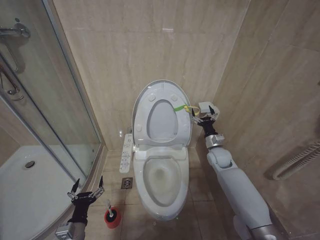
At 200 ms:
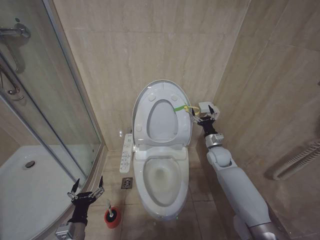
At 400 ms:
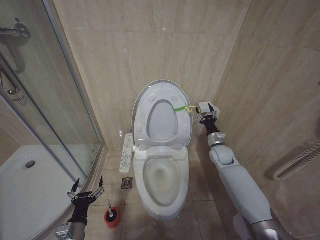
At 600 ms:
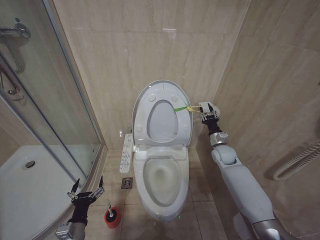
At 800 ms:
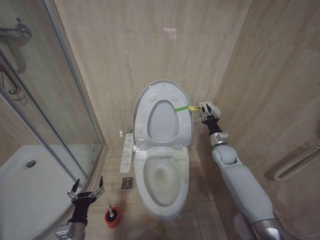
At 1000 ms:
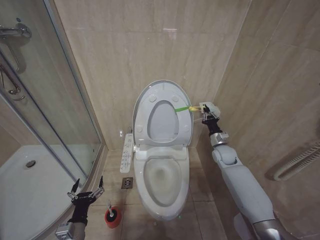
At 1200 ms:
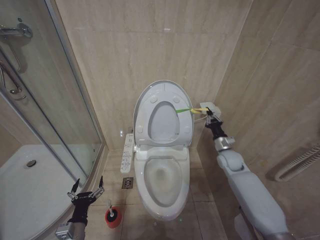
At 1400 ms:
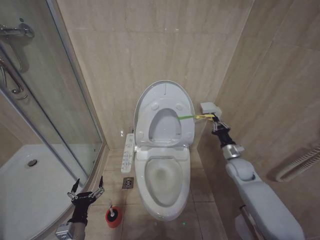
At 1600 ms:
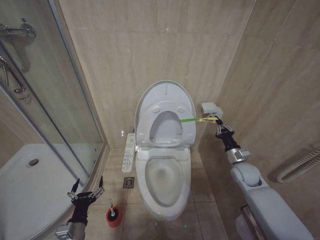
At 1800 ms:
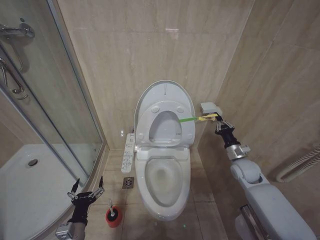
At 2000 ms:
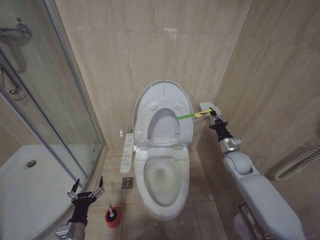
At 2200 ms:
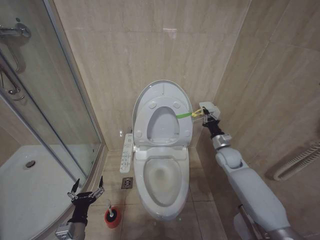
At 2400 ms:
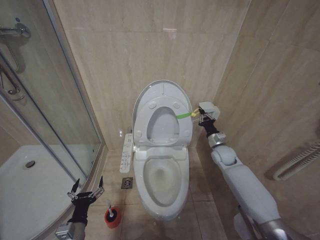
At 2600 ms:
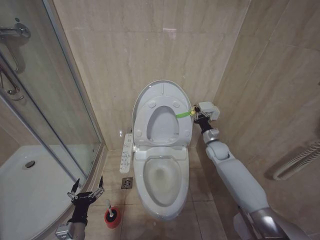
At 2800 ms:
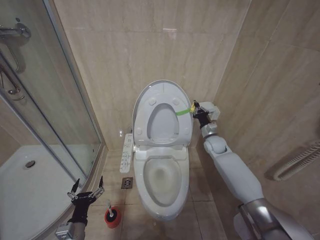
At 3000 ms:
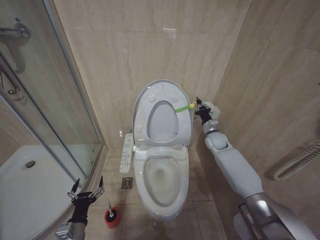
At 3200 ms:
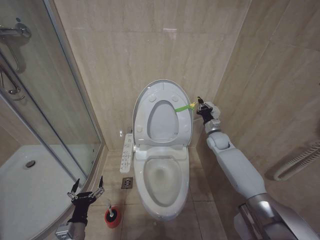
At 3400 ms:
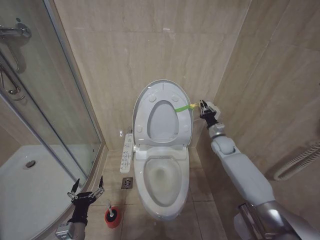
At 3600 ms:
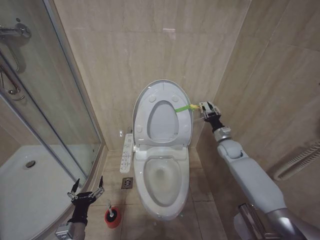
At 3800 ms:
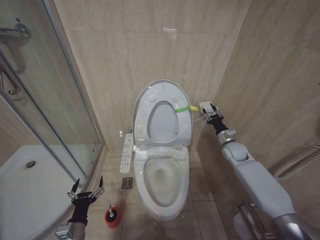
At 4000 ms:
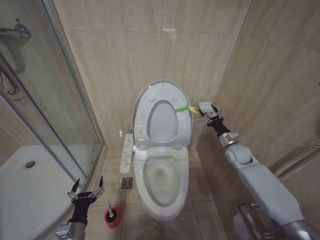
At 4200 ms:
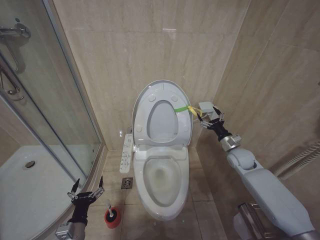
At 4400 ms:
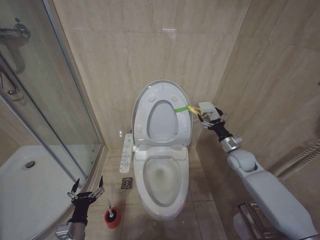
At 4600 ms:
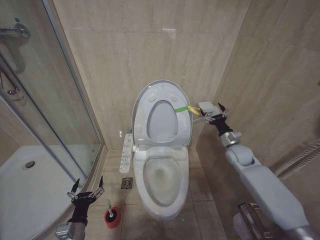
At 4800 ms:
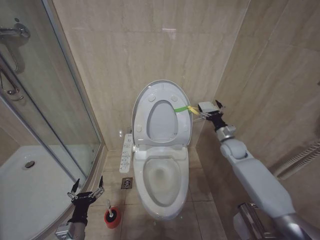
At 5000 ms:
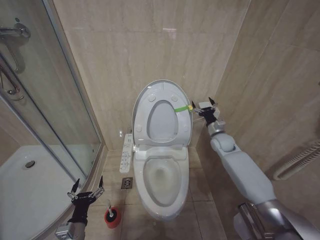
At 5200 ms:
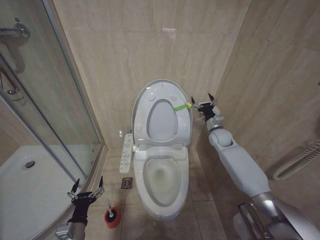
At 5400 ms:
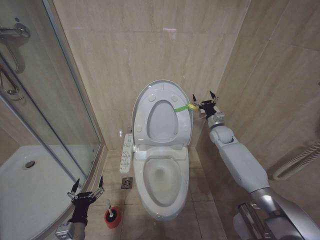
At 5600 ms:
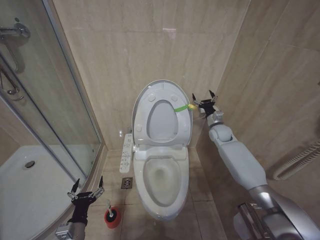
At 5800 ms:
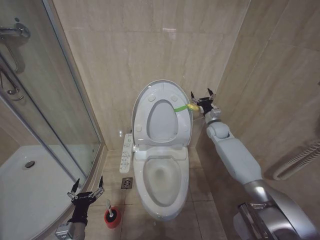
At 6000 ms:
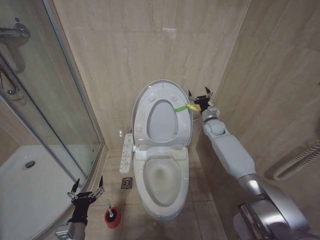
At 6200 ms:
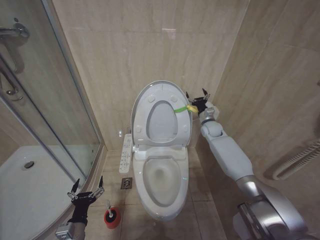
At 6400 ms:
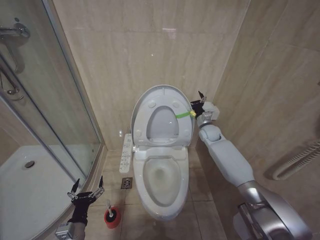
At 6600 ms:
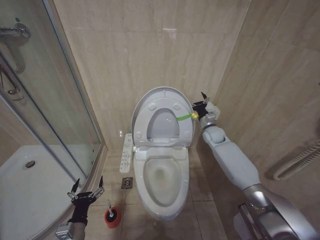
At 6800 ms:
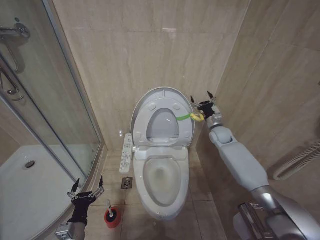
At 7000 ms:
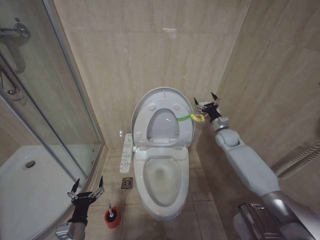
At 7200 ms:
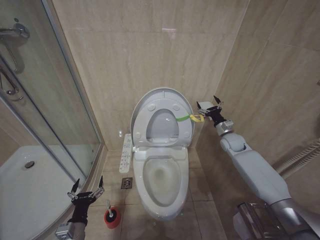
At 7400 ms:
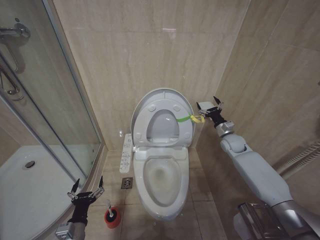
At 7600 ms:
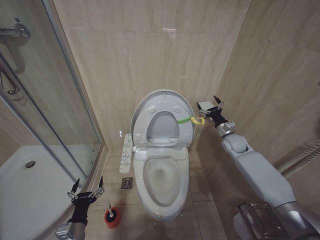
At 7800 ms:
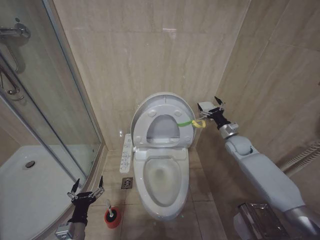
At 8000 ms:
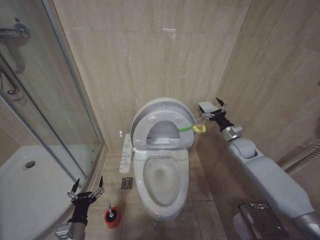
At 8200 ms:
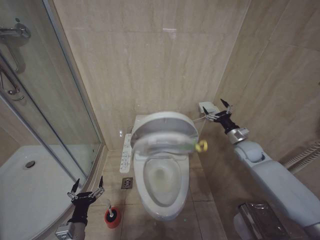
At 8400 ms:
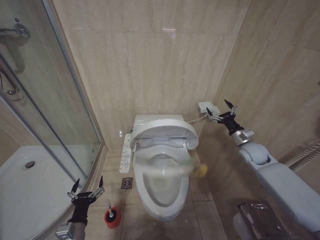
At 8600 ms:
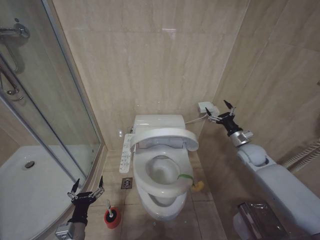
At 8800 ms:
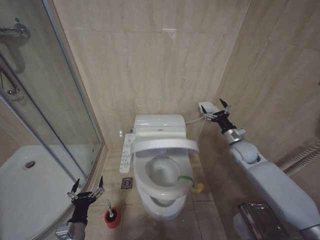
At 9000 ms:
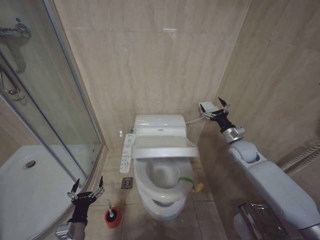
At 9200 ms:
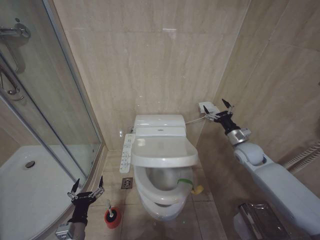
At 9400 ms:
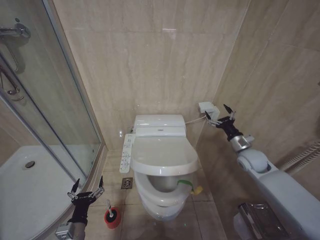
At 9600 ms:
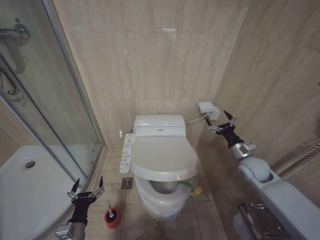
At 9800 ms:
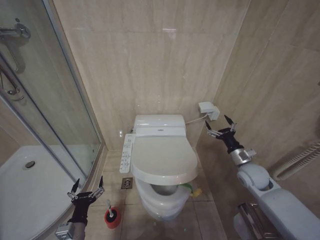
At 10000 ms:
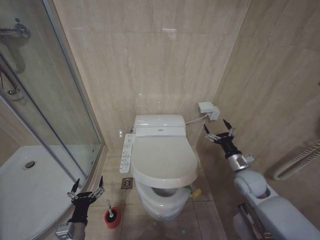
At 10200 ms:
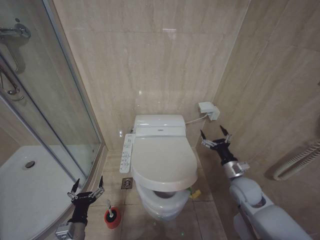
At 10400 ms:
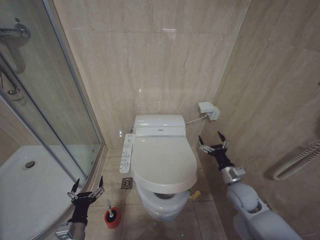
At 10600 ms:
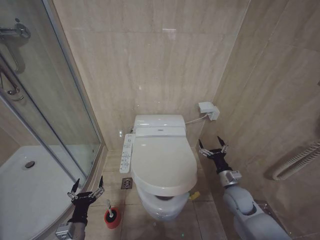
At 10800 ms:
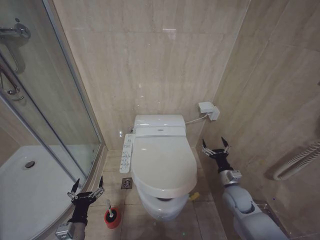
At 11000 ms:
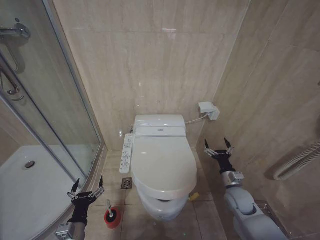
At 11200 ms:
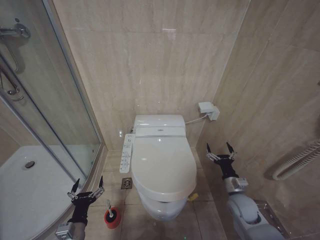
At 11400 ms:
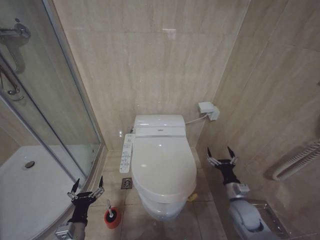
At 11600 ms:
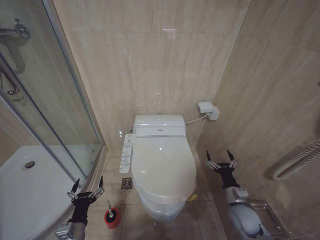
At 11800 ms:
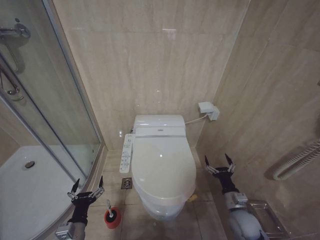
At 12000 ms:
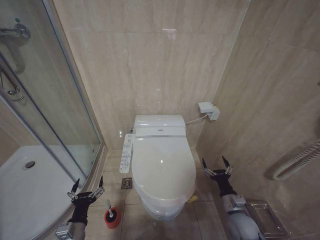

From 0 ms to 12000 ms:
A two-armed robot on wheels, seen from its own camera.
Task of the whole recording: Open the toilet lid, clean the toilet bowl with a toilet brush, close the toilet lid, and flush.
From 0 ms to 1600 ms: The right gripper travels to the right and backward by about 10 cm, and closes.
From 1600 ms to 3000 ms: The right gripper heads forward and to the left, covering approximately 15 cm.
From 3000 ms to 4400 ms: The right gripper shifts approximately 10 cm backward and to the right, and opens its fingers.
From 4400 ms to 6000 ms: The right gripper goes some 15 cm forward, to the left and upward.
From 6000 ms to 7600 ms: The right gripper is displaced backward and to the right by approximately 10 cm.
From 7600 ms to 9000 ms: The right gripper heads backward, covering about 5 cm.
From 9000 ms to 10400 ms: The right gripper heads backward and downward, covering approximately 15 cm.
From 10400 ms to 12000 ms: The right gripper moves downward and backward, some 10 cm.

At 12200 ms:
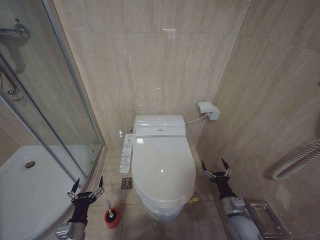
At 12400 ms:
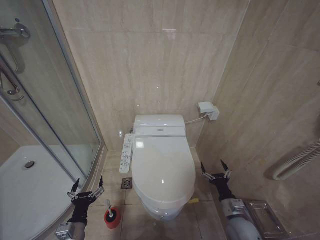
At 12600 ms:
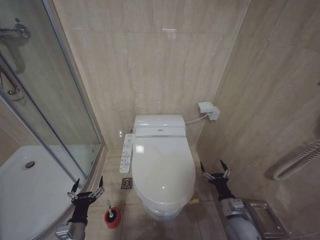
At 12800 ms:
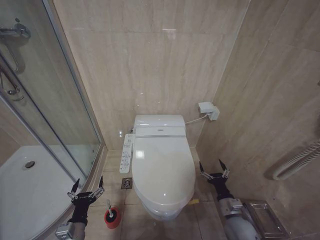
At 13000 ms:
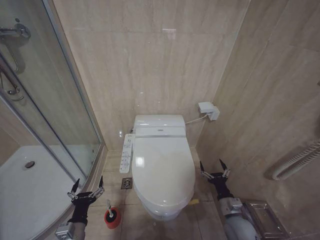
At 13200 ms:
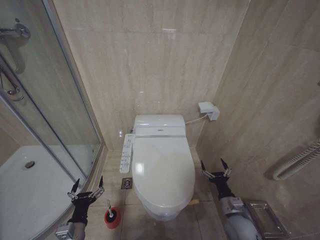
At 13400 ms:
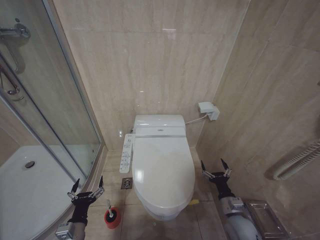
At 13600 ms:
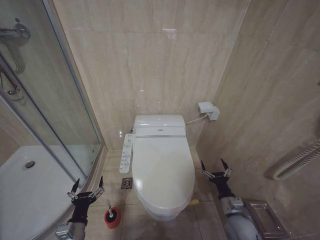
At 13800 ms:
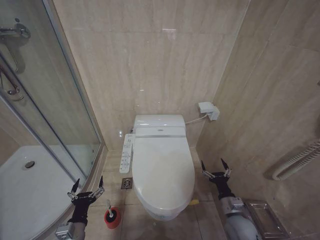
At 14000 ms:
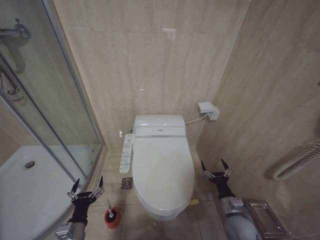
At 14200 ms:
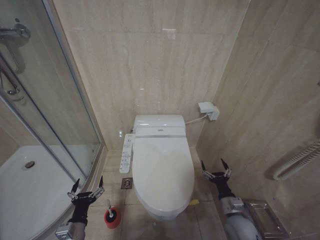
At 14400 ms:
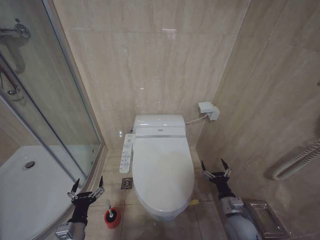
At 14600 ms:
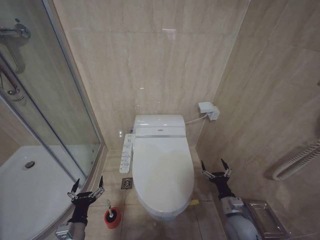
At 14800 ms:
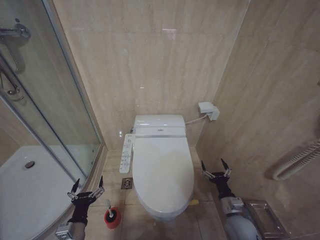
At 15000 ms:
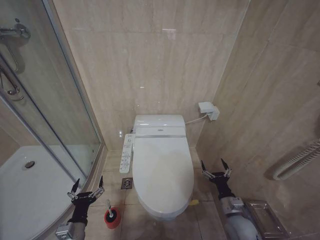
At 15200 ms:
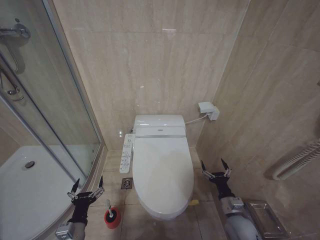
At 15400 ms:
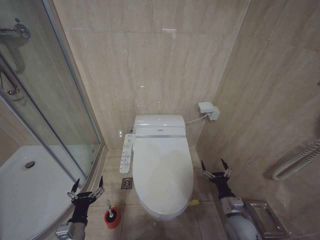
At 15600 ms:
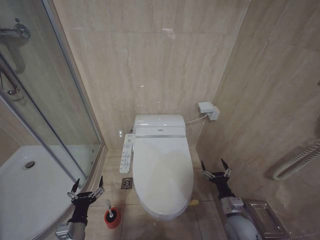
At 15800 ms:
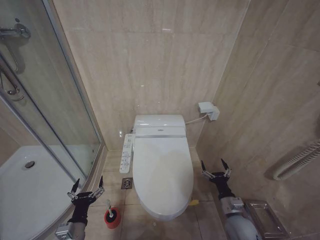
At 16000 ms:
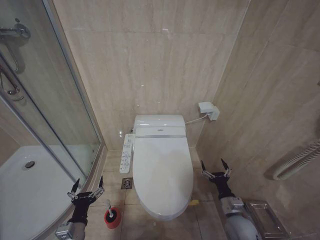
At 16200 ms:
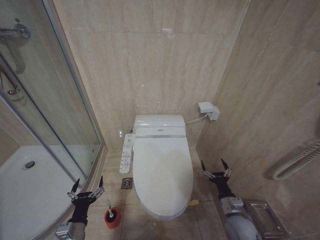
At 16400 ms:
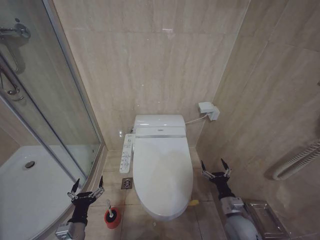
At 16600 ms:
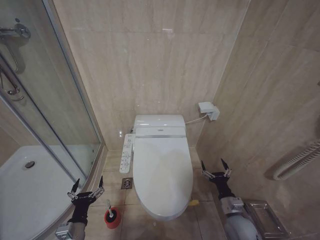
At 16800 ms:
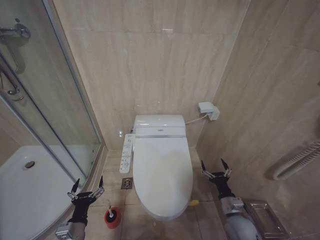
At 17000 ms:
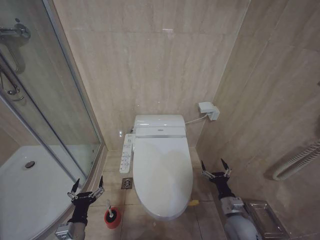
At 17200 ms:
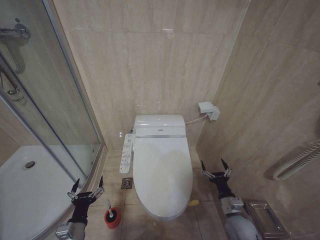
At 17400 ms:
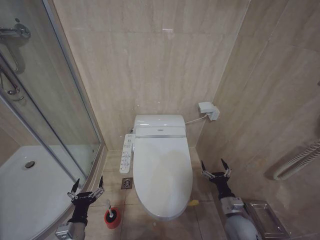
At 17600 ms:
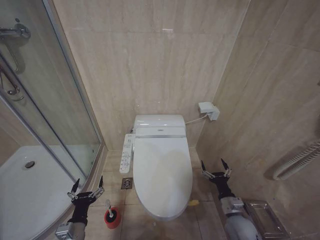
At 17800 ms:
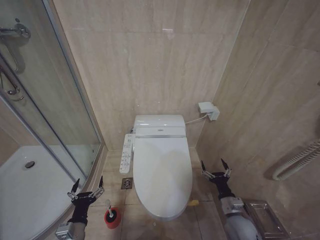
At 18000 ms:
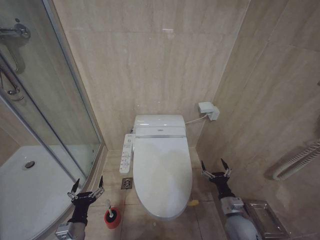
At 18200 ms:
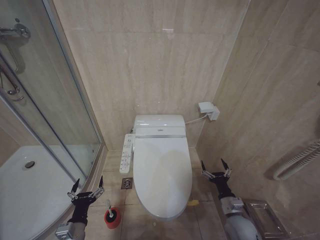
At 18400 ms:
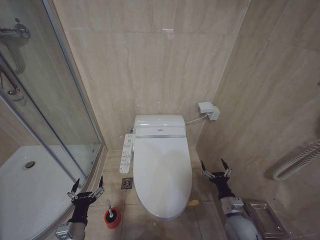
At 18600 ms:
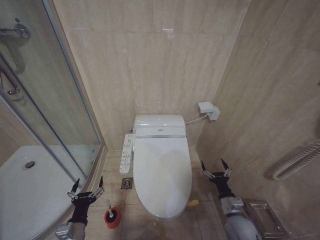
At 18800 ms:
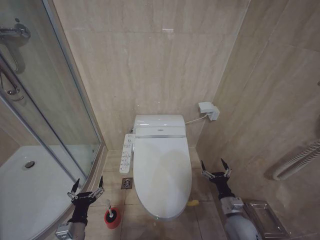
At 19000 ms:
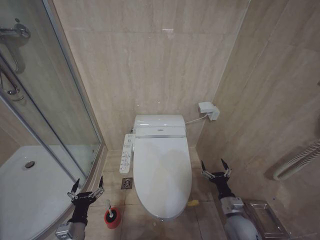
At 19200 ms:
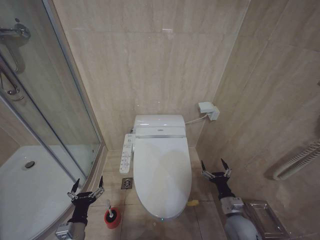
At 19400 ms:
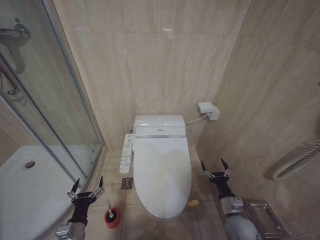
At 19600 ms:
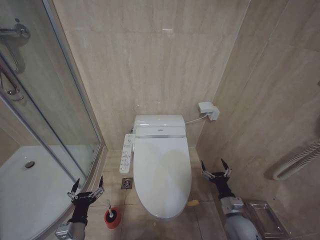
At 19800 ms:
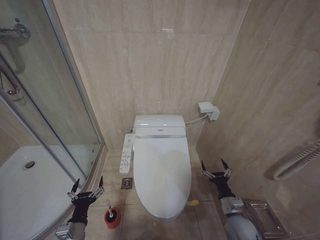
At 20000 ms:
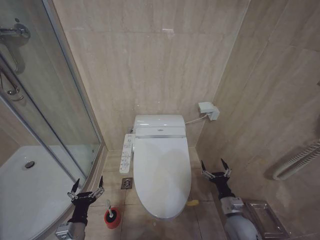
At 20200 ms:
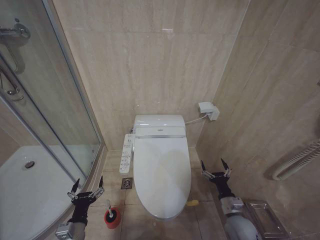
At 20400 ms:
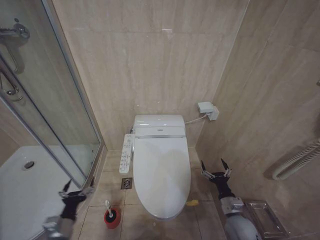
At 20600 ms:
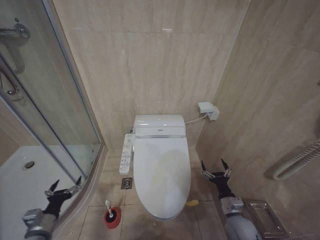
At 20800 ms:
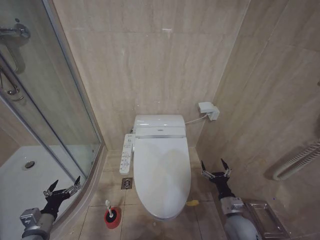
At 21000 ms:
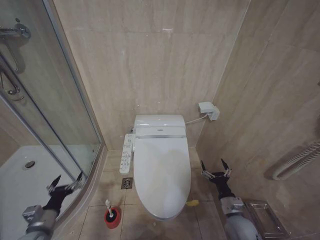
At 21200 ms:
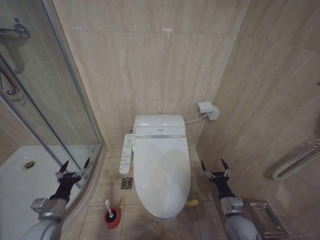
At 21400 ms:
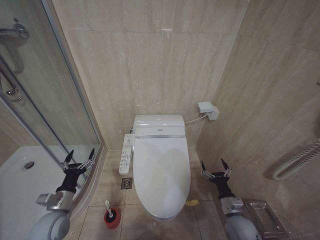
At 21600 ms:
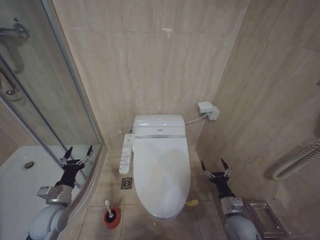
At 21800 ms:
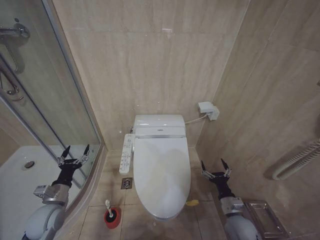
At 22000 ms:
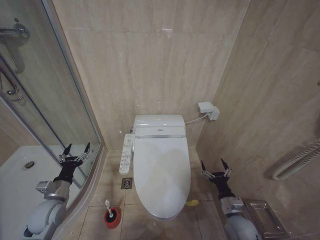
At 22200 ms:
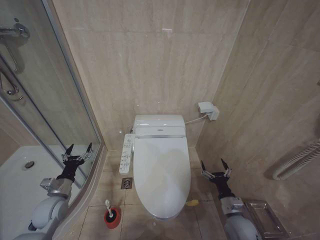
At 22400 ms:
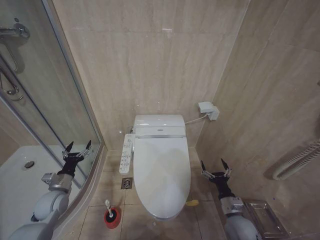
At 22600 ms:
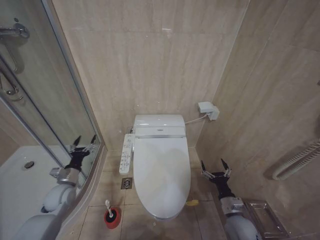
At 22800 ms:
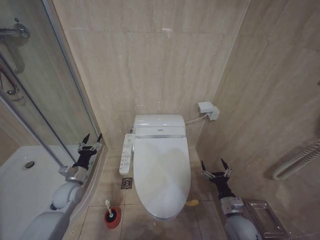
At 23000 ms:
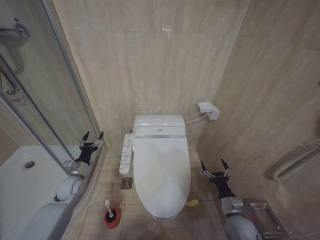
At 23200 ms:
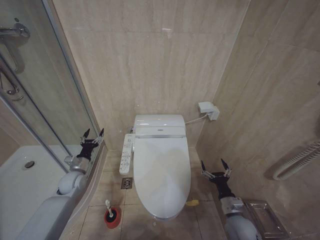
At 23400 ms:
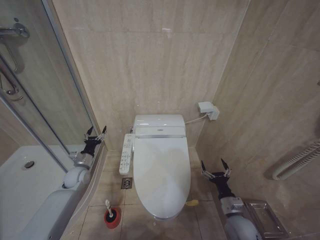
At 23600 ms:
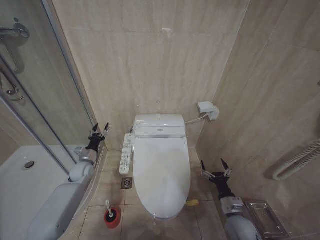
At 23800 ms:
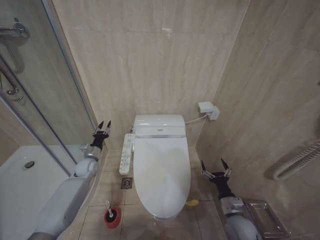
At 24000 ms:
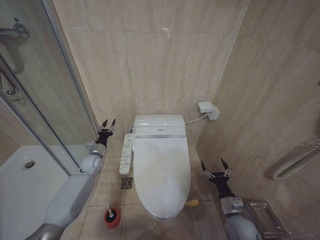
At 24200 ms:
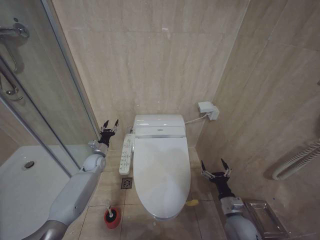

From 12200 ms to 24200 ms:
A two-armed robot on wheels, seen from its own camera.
Task of the whole recording: Open the toilet lid, clean the toilet bowl with a toilet brush, close the toilet lid, and flush.
From 12200 ms to 19800 ms: Both grippers stay put.
From 19800 ms to 21200 ms: The left gripper is displaced to the left and forward by some 10 cm.
From 21200 ms to 22600 ms: The left gripper heads forward, covering about 10 cm.
From 22600 ms to 24200 ms: The left gripper travels forward and to the right by about 20 cm, and closes its fingers.
